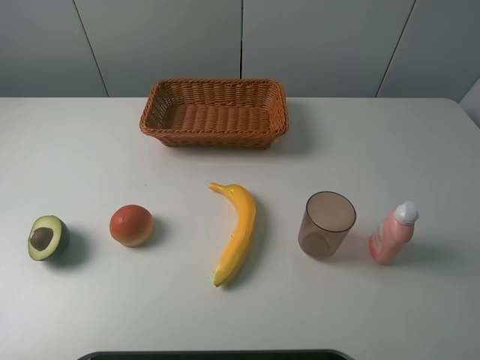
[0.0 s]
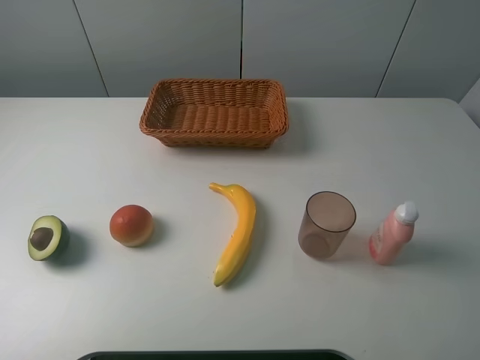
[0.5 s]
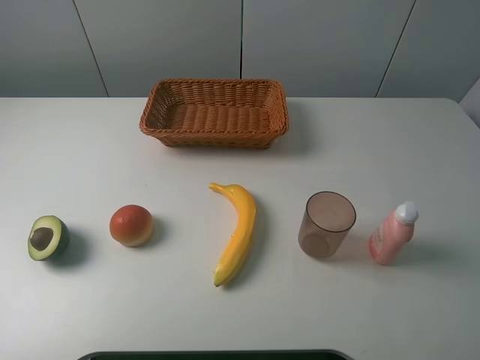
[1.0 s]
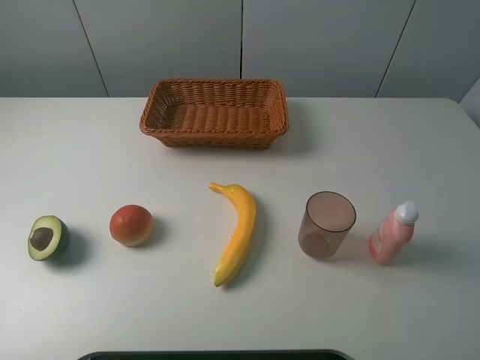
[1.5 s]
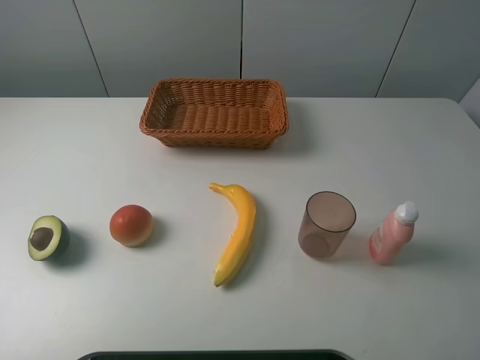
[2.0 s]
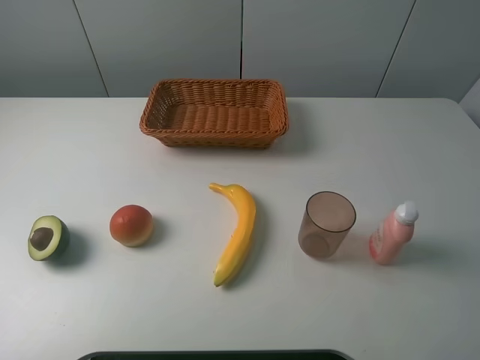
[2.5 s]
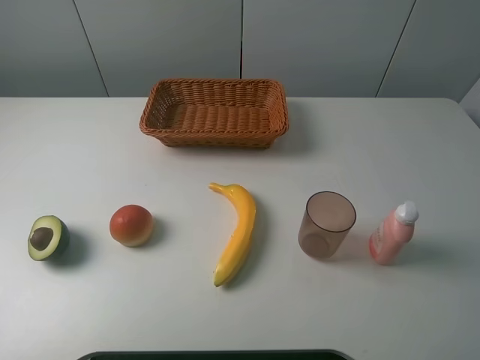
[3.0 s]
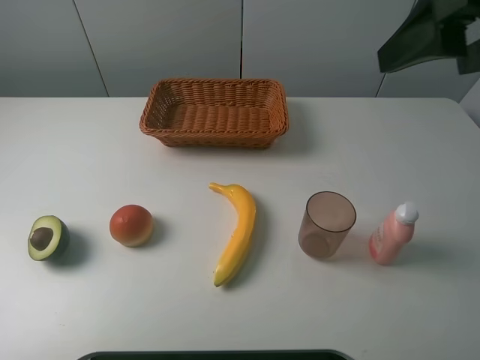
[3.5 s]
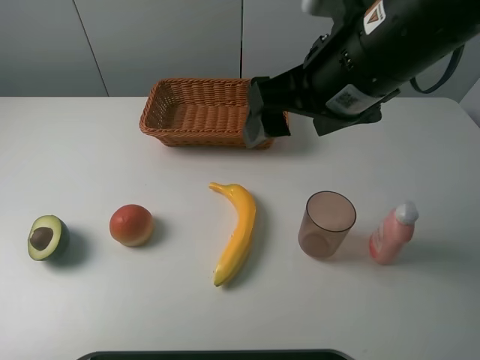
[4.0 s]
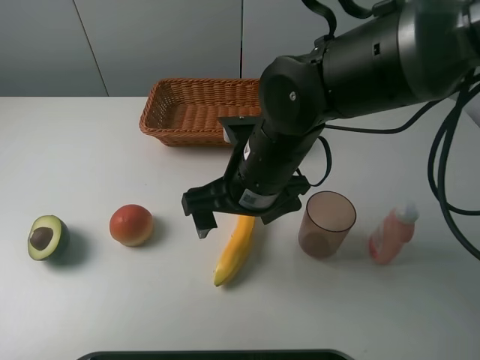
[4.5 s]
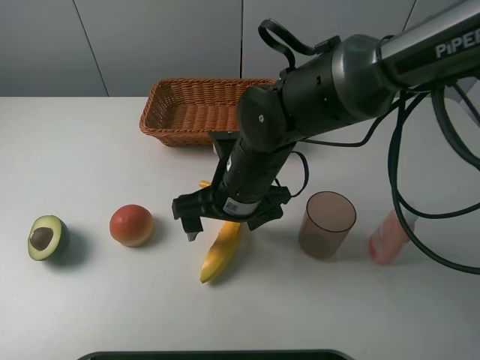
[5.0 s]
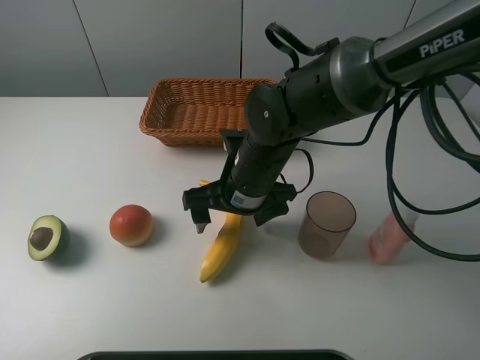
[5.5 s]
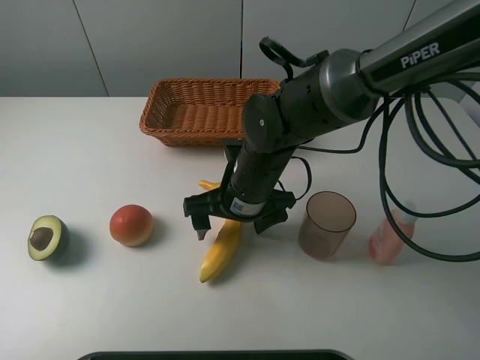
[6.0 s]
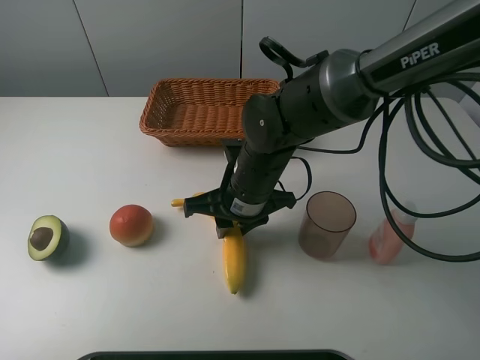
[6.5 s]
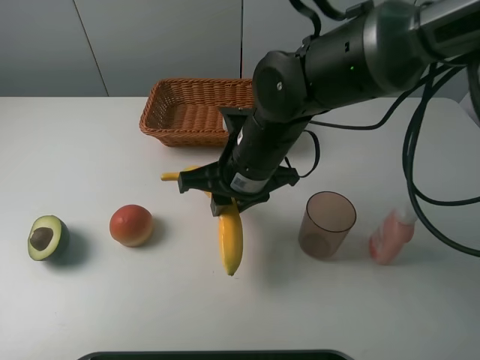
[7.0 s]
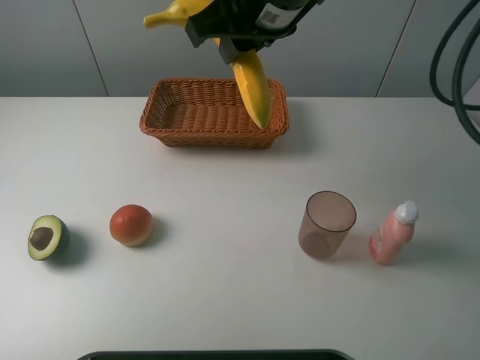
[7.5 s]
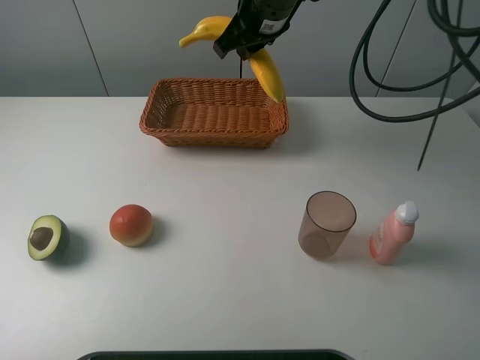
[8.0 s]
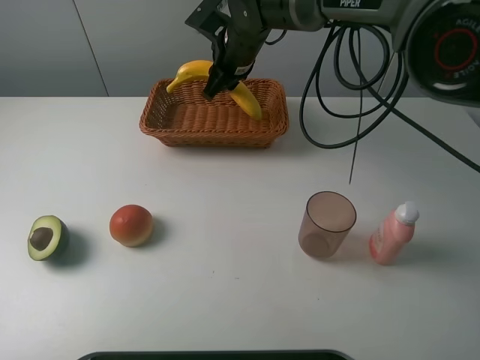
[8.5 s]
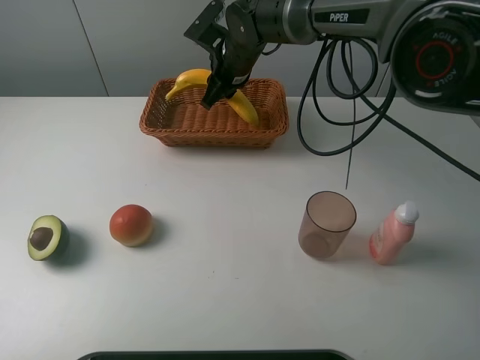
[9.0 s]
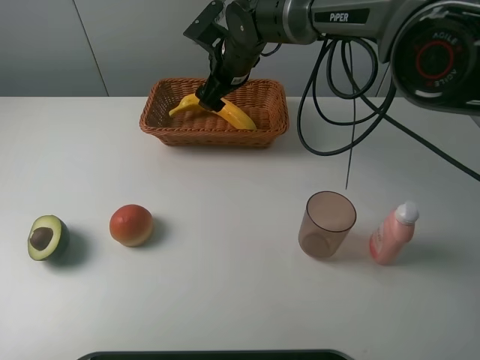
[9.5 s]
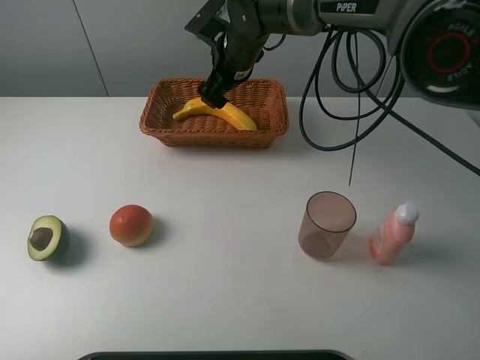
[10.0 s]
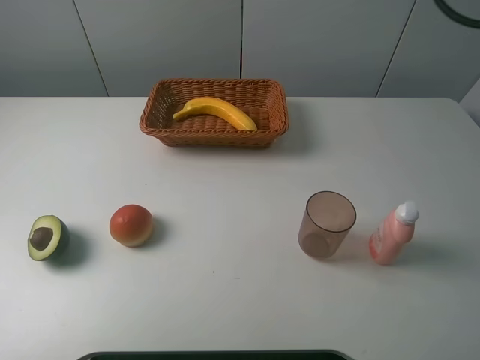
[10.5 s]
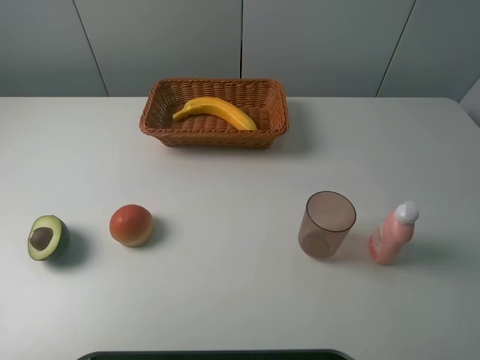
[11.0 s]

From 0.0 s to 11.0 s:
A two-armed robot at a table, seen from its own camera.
Task of the whole recording: randomly pick up an item from the table and put it in the basket.
Step, from 0.0 s to 6.5 s: Grasp the banana with the right gripper.
Step, from 7.0 s to 9.5 s: Place the banana into the basket with the right gripper.
From 0.0 s to 2.0 s: Both grippers stay about where they are.
From 2.0 s to 3.5 s: The right gripper is displaced forward and to the left by approximately 20 cm.
From 3.5 s to 5.5 s: The right gripper goes approximately 30 cm downward and to the left.
From 5.5 s to 7.5 s: The right gripper travels upward by approximately 20 cm, and closes its fingers.
From 7.5 s to 9.0 s: The right gripper travels downward and forward by roughly 25 cm.
From 9.0 s to 11.0 s: The right gripper goes about 50 cm upward, to the right and backward, and opens its fingers.

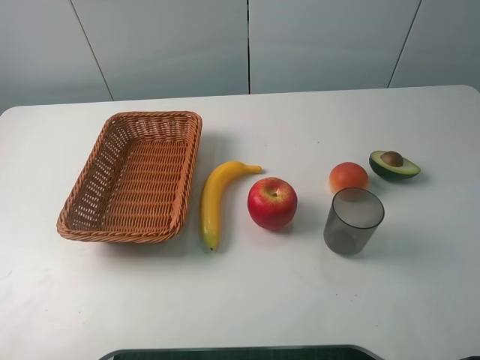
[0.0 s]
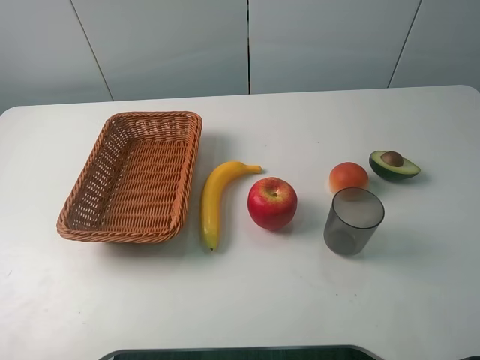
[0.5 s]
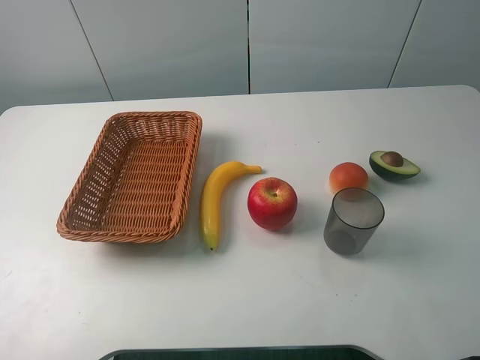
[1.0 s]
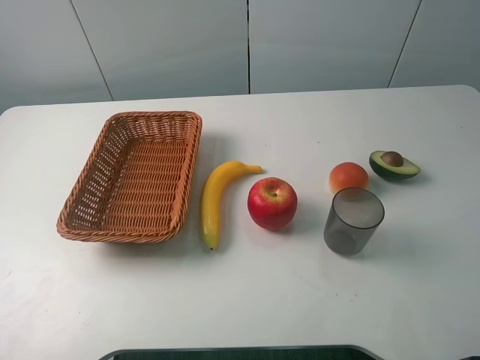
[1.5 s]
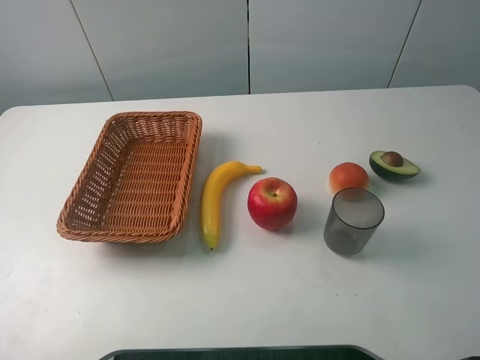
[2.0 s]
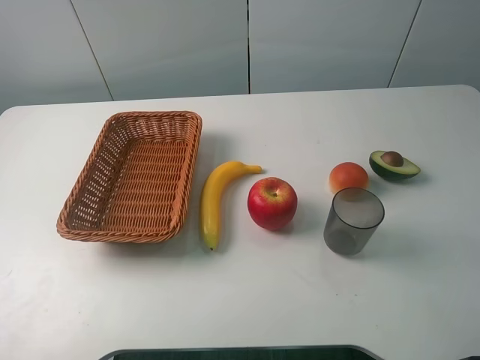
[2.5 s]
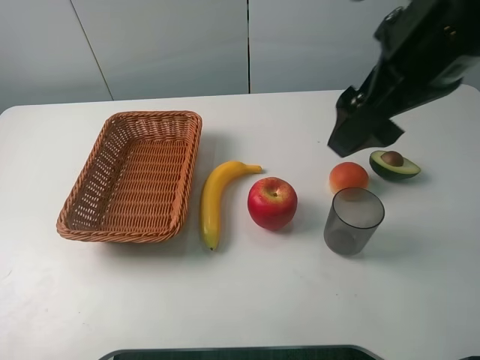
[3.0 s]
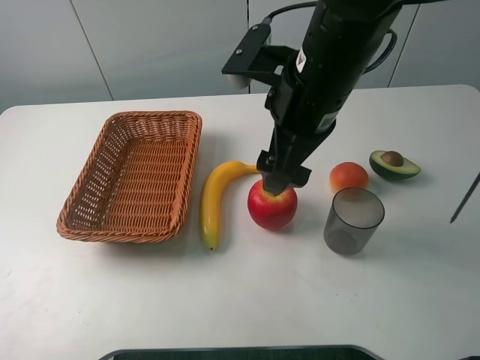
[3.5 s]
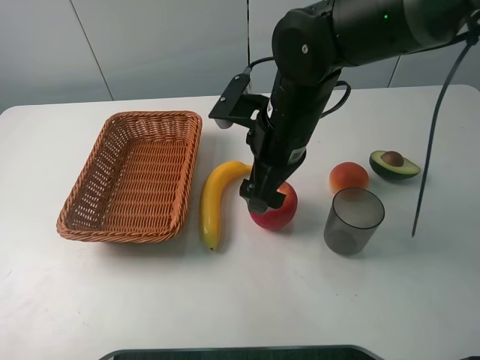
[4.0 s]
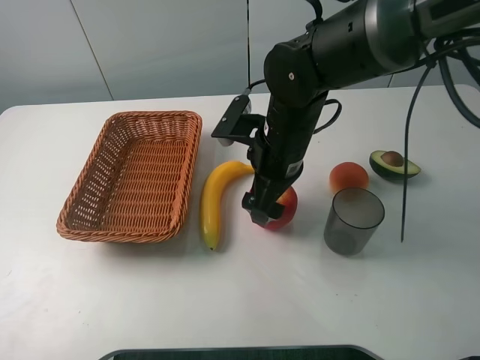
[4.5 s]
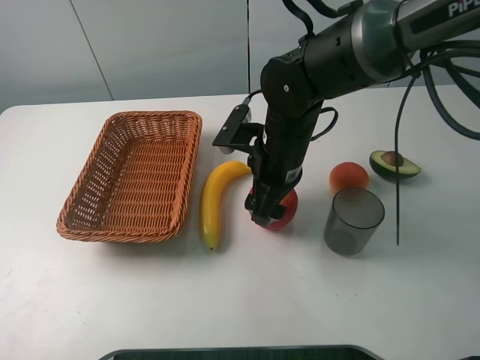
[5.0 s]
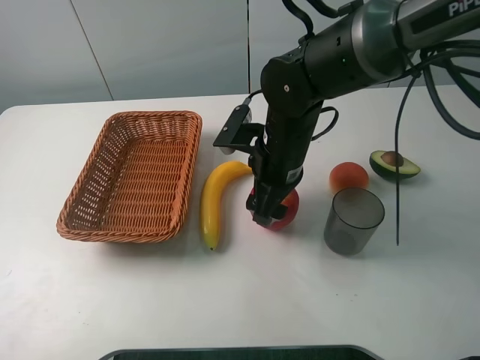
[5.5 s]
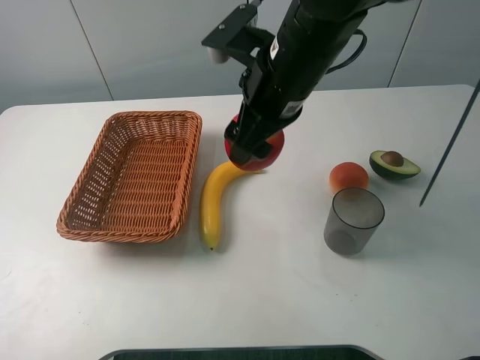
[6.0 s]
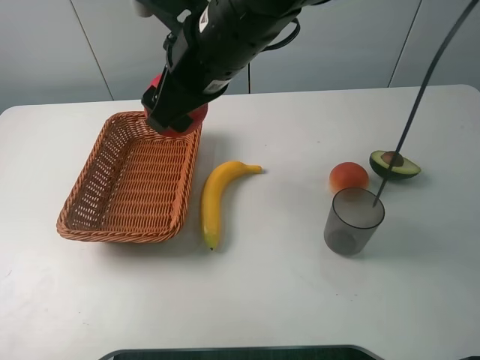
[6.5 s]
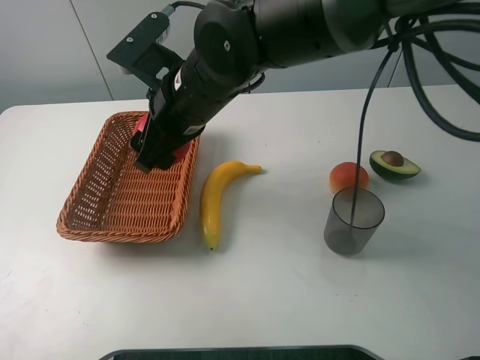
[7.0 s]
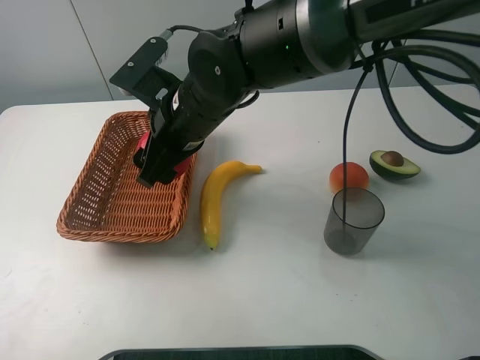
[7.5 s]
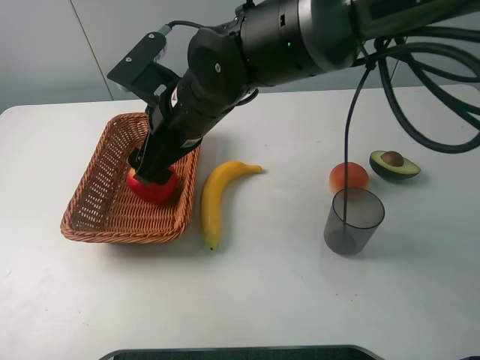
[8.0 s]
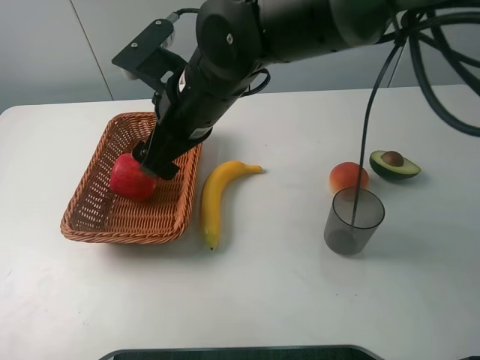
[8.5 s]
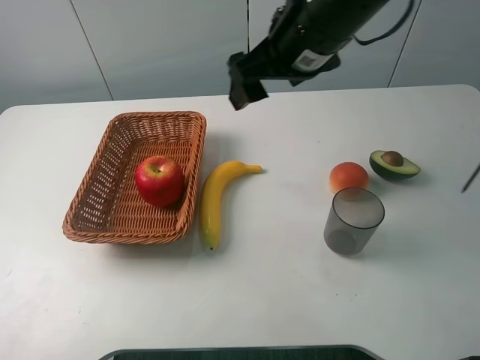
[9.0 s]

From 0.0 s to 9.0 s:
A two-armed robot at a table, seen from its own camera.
Task of the whole recording: randomly pick up an item from the table and put it in the basket.
Step, from 0.0 s to 5.0 s: Grasp the apple with the right gripper.
Step, from 5.5 s to 8.5 s: Place the apple into the basket with the right gripper.
From 2.0 s to 4.5 s: The right gripper moves forward, to the left and downward, roughly 40 cm.
From 4.5 s to 7.0 s: The right gripper is displaced to the left and upward by about 10 cm, and closes up.
From 7.0 s to 9.0 s: The right gripper moves to the right and upward, about 15 cm, and opens its fingers.

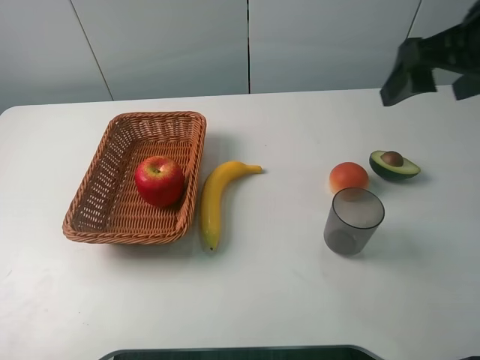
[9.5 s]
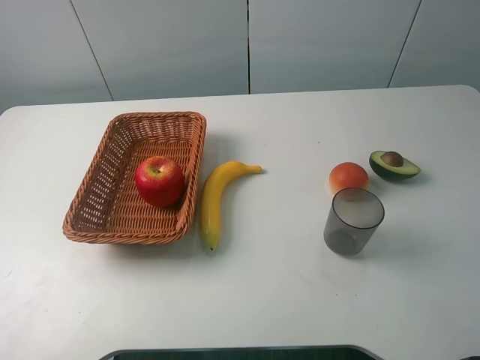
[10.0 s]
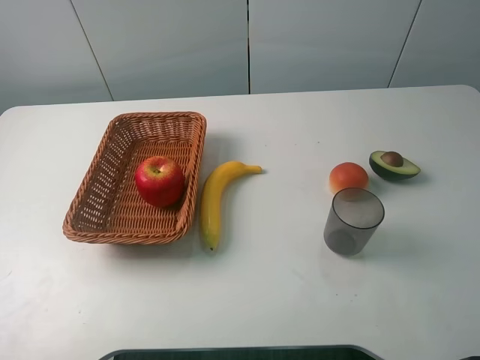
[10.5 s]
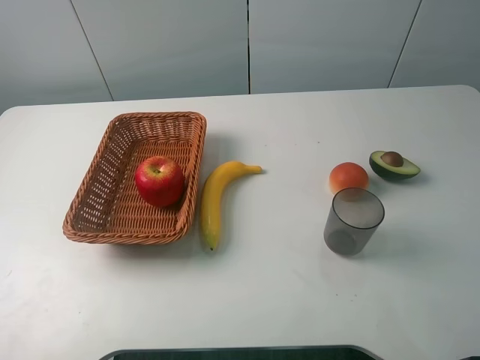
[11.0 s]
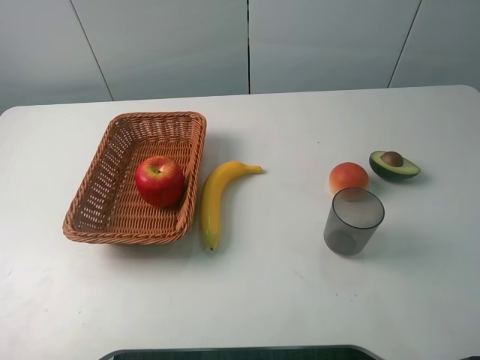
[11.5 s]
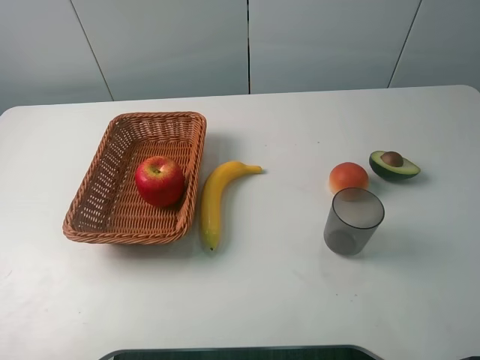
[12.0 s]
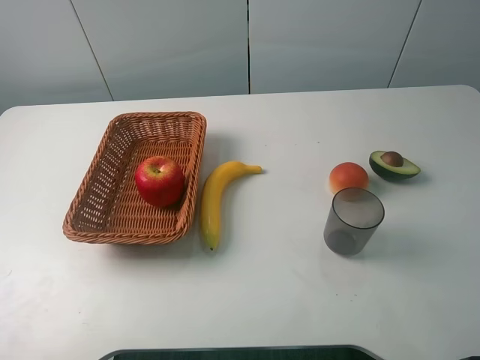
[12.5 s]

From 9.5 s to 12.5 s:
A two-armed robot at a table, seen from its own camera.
Task of the whole recording: randomly pick up an item from the table and put it in the basket.
From 9.5 s to 11.0 s: The right gripper goes about 25 cm backward.
From 11.0 s to 12.5 s: Neither gripper changes place.

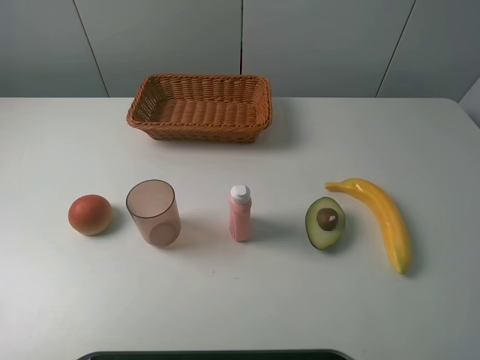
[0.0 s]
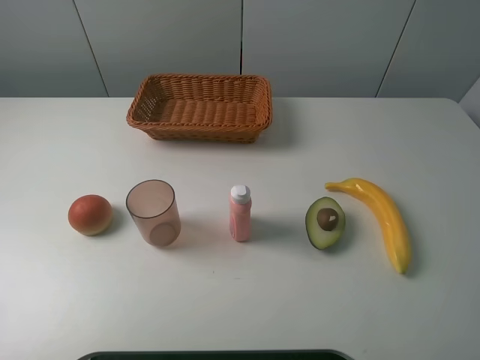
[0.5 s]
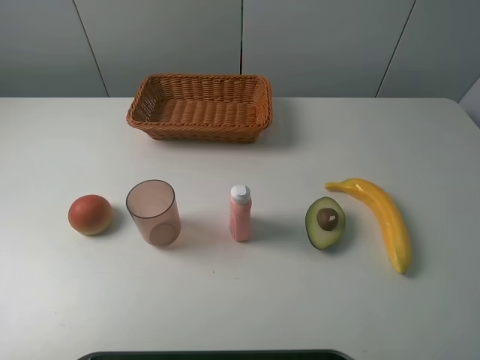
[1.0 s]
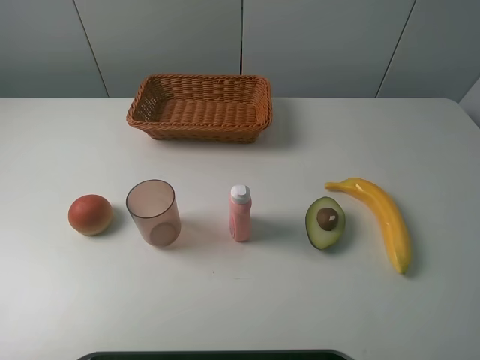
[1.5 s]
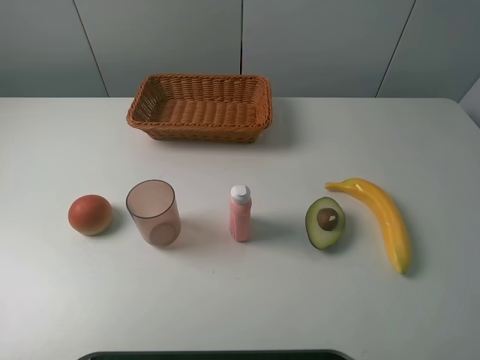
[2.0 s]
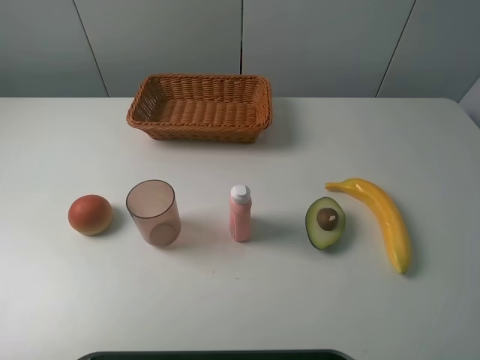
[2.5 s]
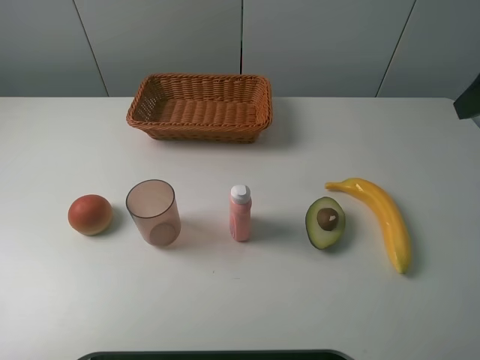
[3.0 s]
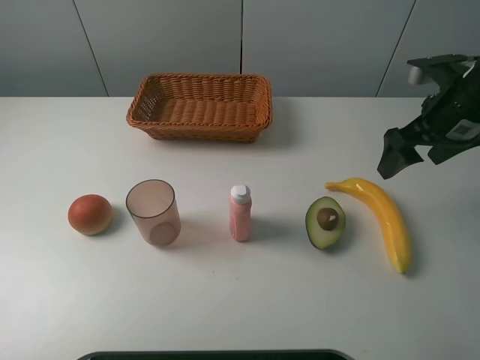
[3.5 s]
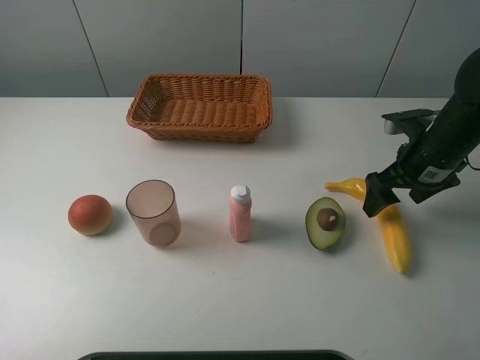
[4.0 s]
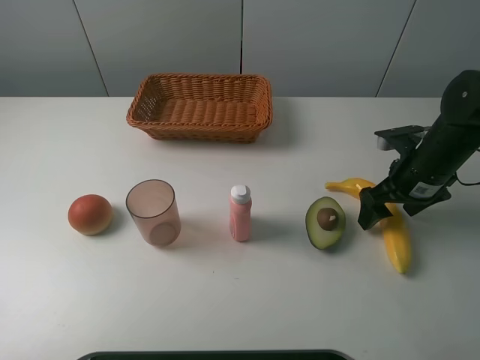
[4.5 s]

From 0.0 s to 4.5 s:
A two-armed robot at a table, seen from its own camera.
Task of the whole recording: randomly pick up an item from the table and put it in the basket.
From 0.0 s to 2.0 s: Both grippers stay about where they are.
From 2.0 s to 4.5 s: The right gripper goes some 35 cm forward and downward.
